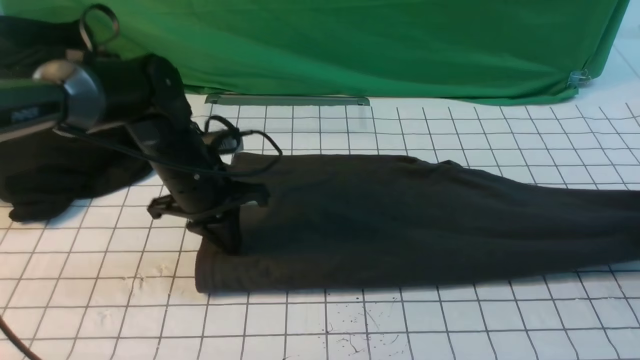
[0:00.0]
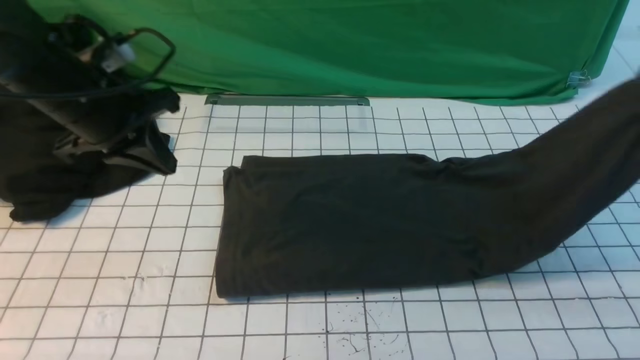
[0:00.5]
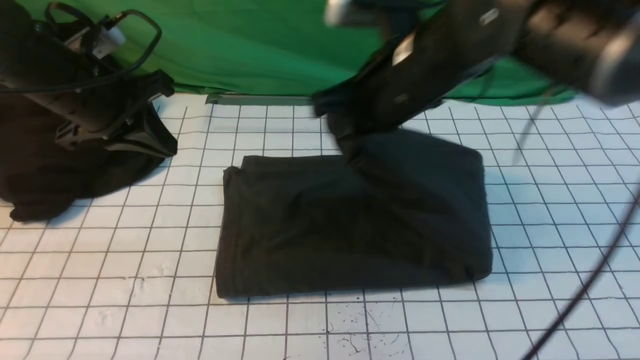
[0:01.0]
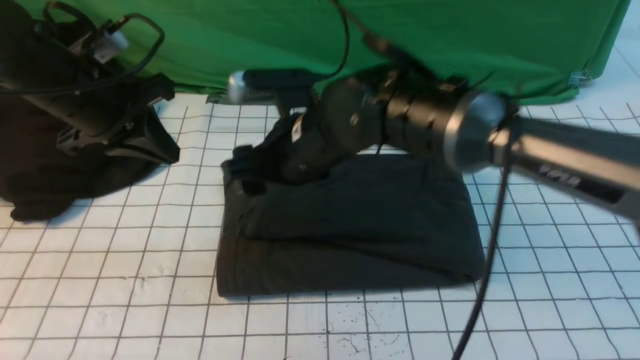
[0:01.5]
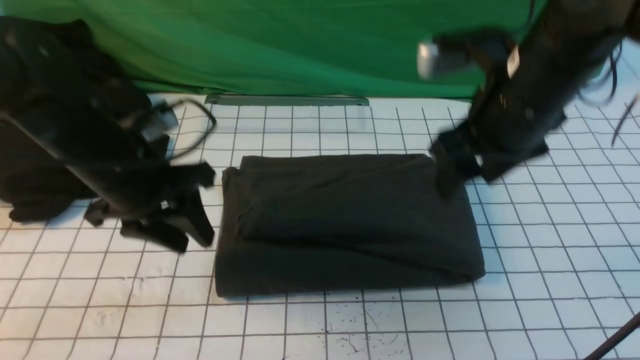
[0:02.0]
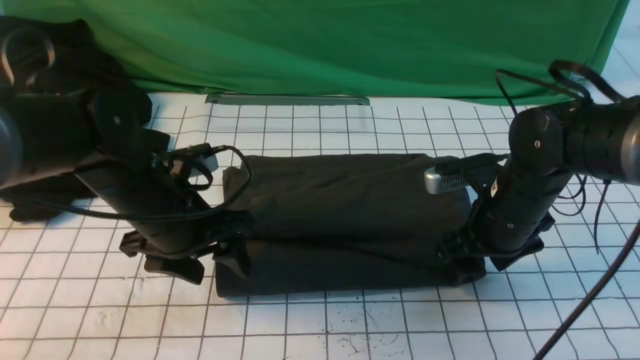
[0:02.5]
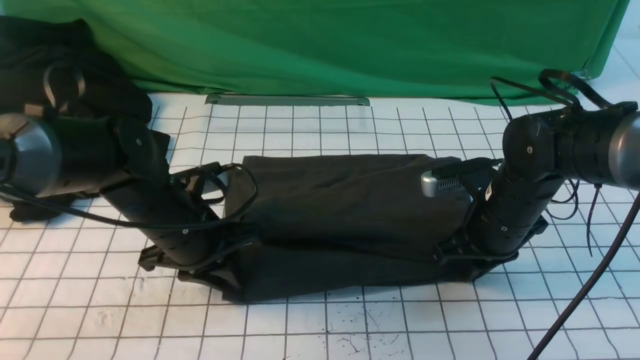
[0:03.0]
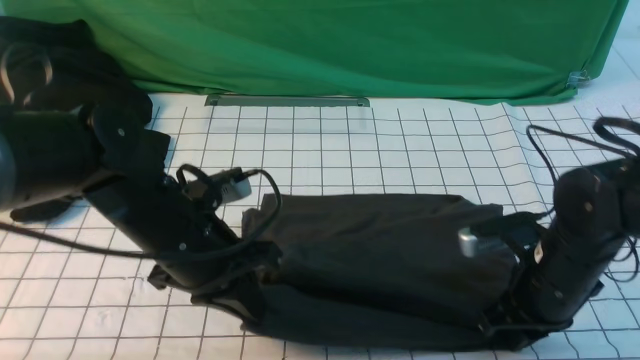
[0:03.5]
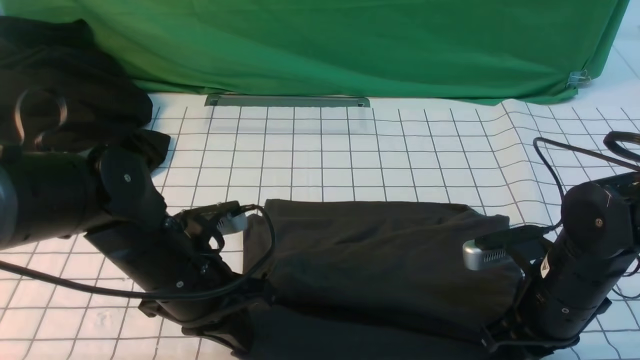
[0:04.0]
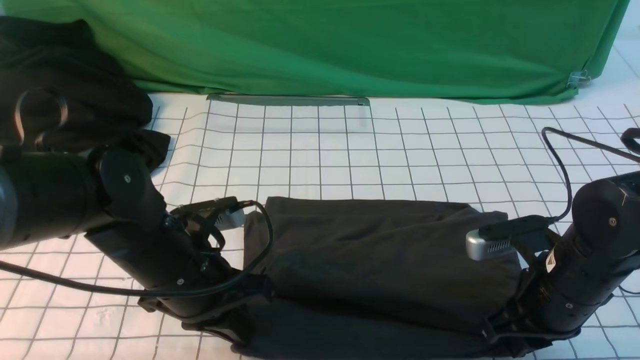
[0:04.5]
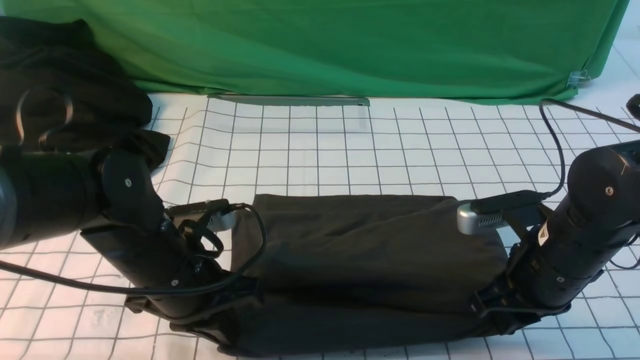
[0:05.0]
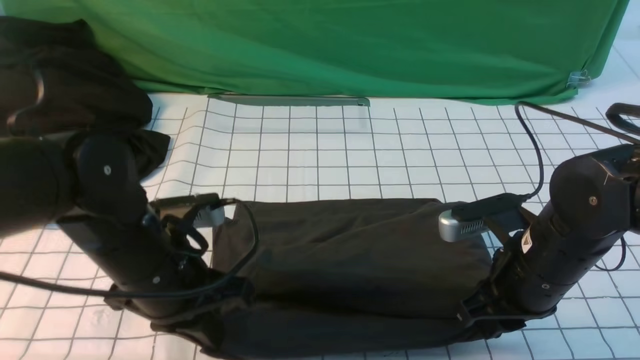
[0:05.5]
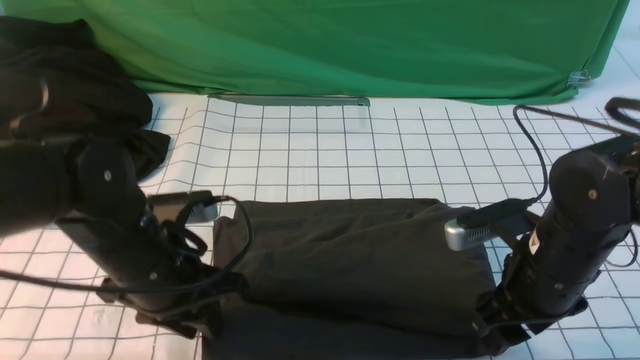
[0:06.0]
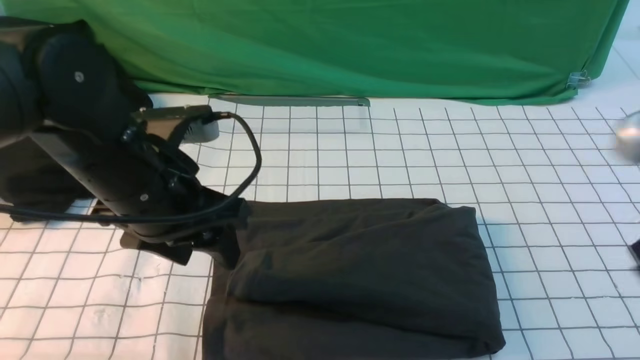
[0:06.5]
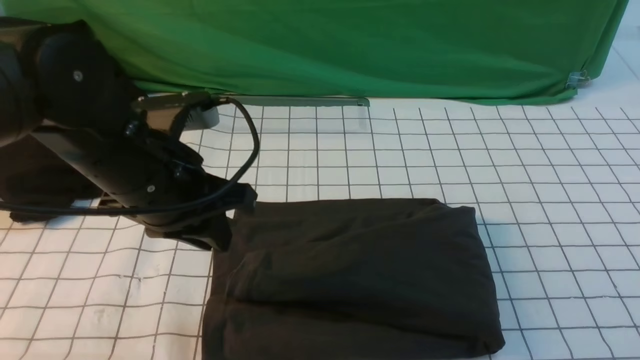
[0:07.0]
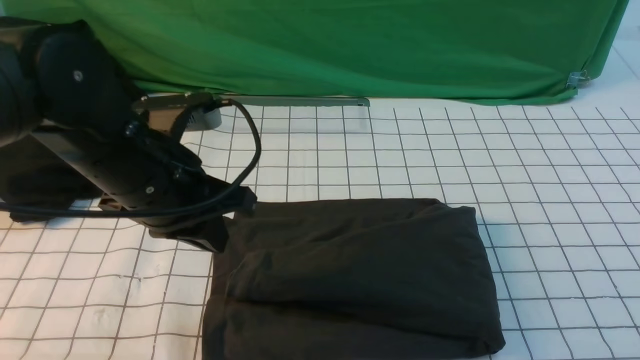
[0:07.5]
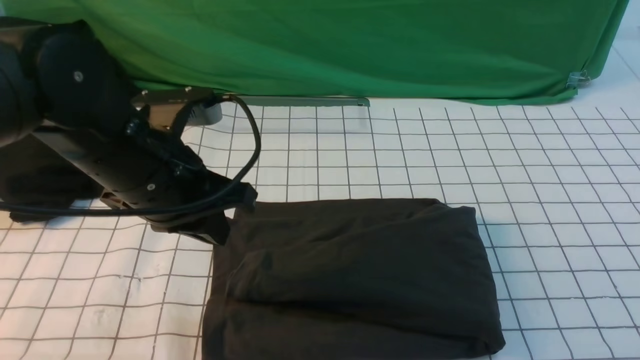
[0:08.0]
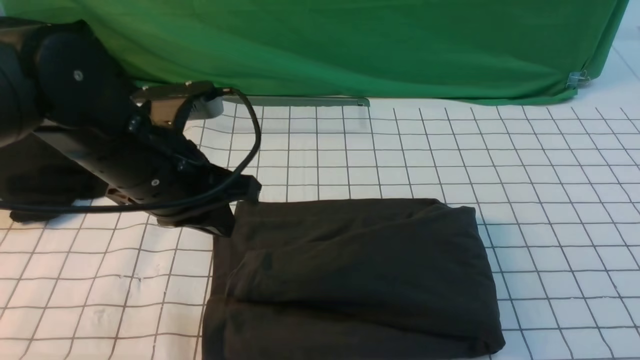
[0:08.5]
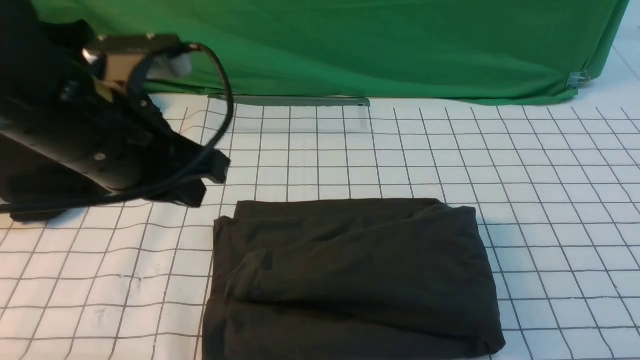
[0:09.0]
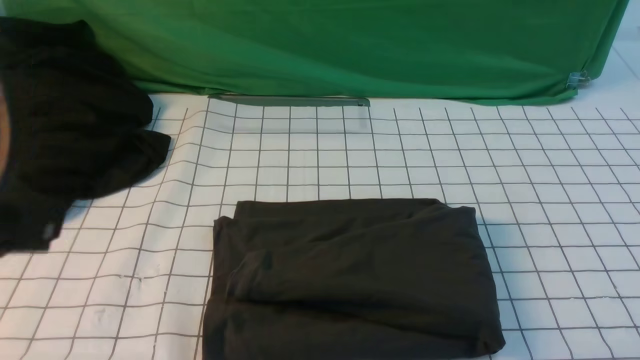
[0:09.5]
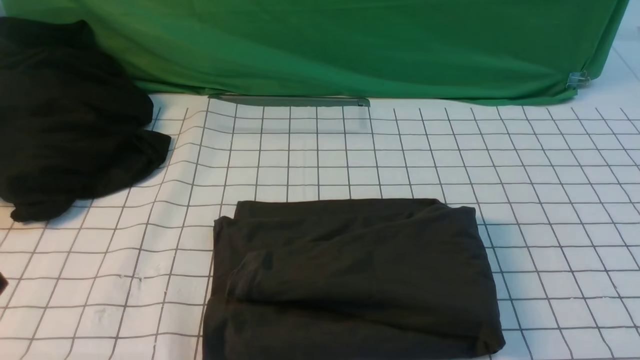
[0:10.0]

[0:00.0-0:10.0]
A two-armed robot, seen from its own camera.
Step, 0:00.5 to 0:01.5: use the right arm to drag the right edge of the fabric to the left and folds it over the left edge.
0:00.0 to 0:02.0: The left gripper opens up. Meanwhile the right gripper goes approximately 30 cm to the left, and opens.
0:02.0 to 0:04.0: The right gripper heads downward, backward and to the right, covering approximately 15 cm, and closes. Meanwhile the left gripper heads backward, to the right and downward, covering about 10 cm, and closes.
0:04.0 to 0:06.0: The right gripper is displaced upward by approximately 5 cm, and opens. The left gripper opens its fingers.
0:06.0 to 0:08.0: The left gripper is displaced upward by approximately 5 cm, and closes its fingers. The right gripper travels backward, to the right and upward by roughly 25 cm, and closes.
0:08.0 to 0:10.0: The right gripper travels downward by about 10 cm. Meanwhile the left gripper is displaced backward and to the left by roughly 25 cm.

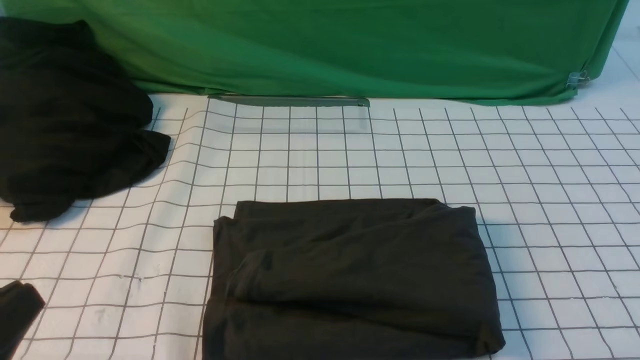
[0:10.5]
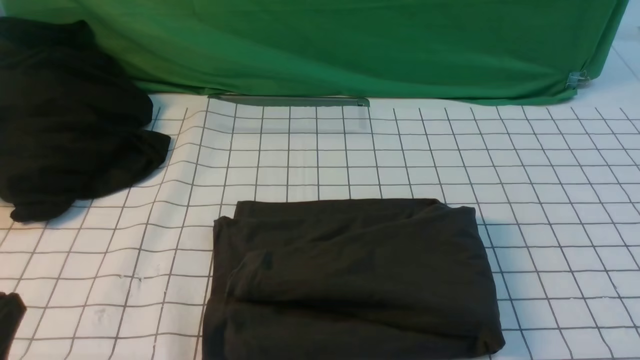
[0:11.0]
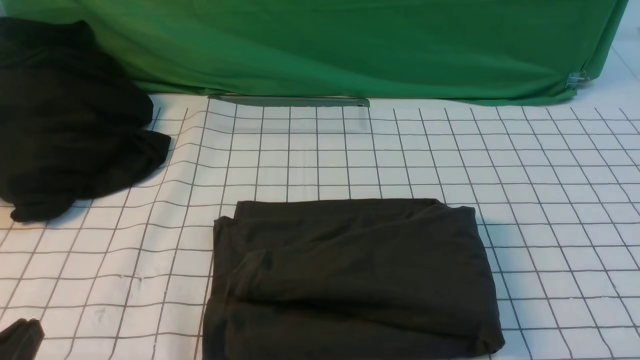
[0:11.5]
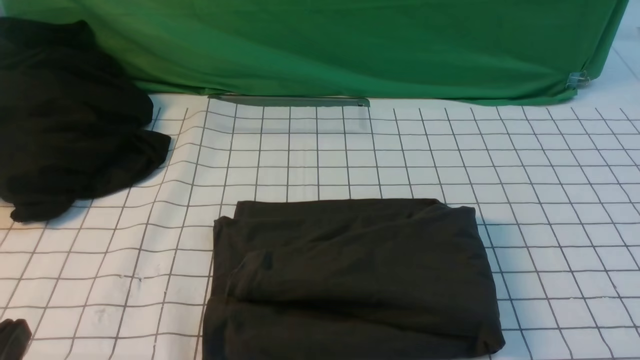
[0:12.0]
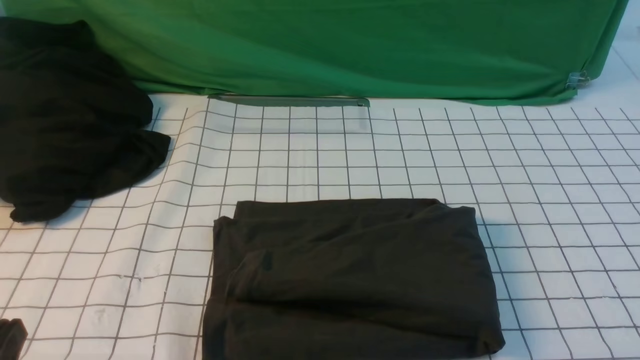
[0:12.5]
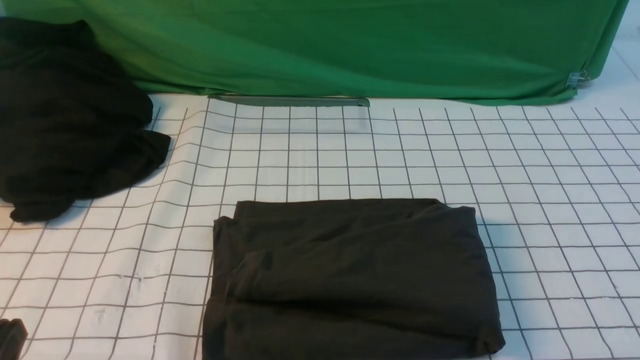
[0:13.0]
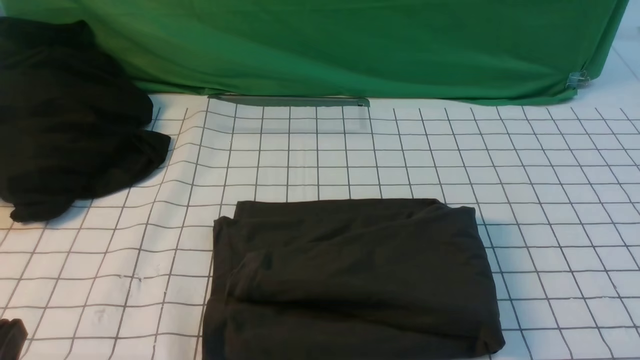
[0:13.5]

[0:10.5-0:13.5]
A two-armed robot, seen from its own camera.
0:10.5 to 0:12.0: The left gripper is displaced downward by roughly 5 cm.
0:12.0 to 0:13.5: Both grippers stay put.
